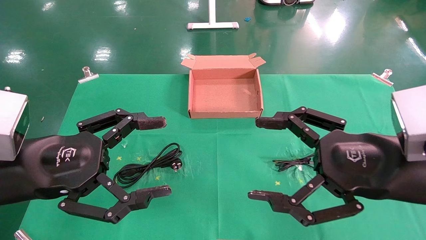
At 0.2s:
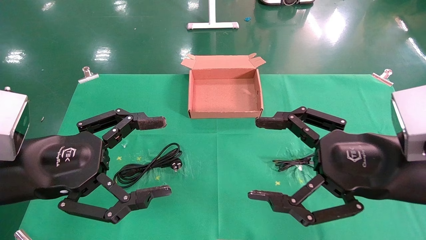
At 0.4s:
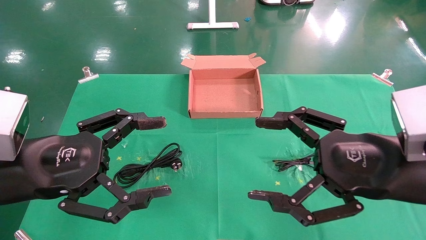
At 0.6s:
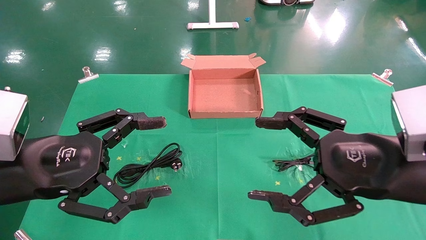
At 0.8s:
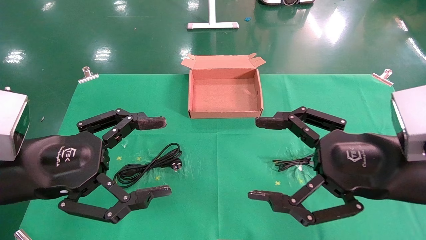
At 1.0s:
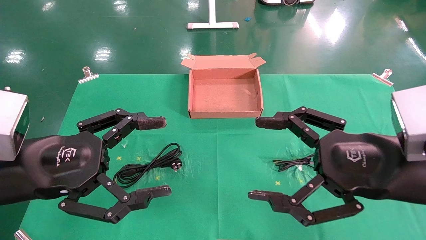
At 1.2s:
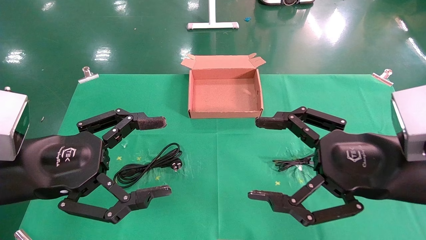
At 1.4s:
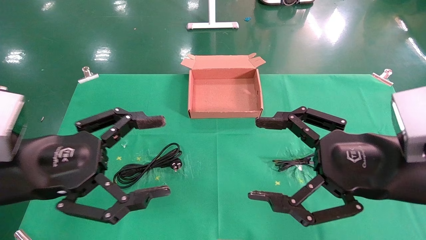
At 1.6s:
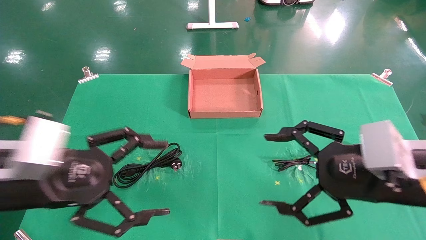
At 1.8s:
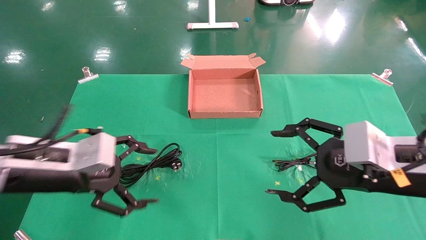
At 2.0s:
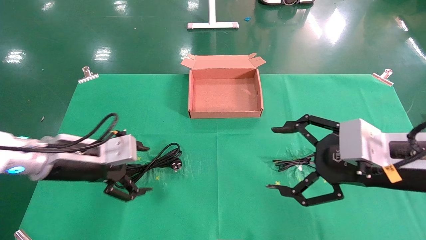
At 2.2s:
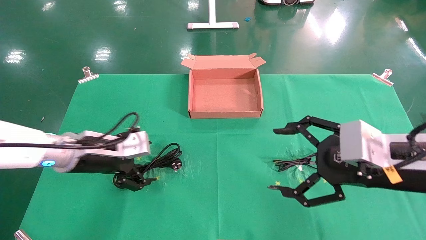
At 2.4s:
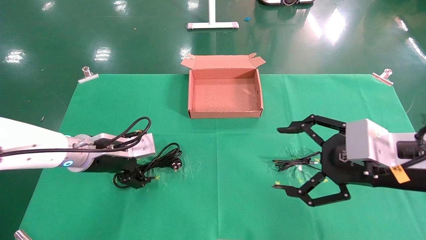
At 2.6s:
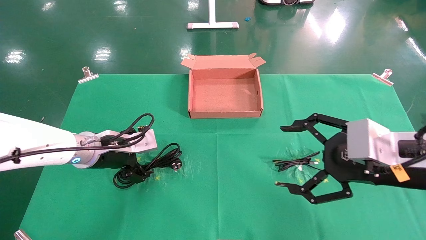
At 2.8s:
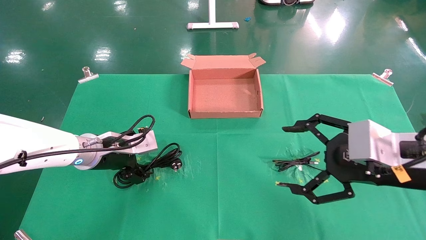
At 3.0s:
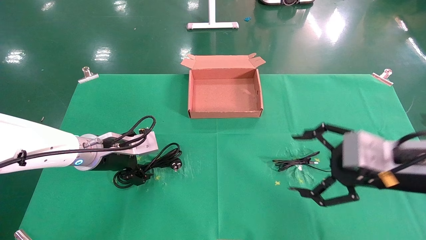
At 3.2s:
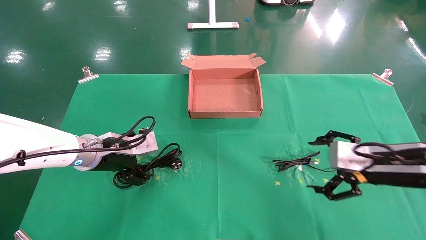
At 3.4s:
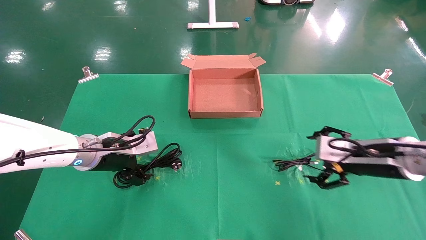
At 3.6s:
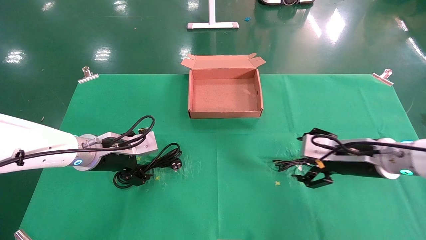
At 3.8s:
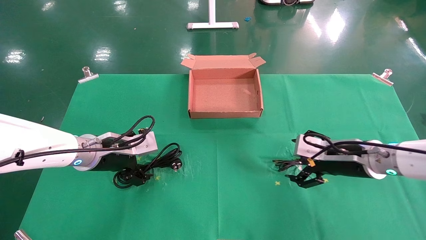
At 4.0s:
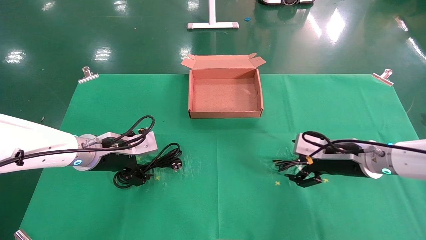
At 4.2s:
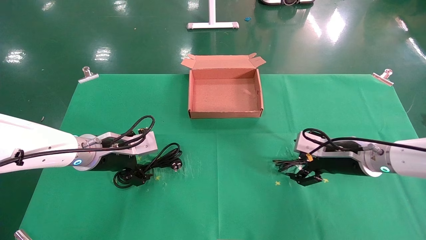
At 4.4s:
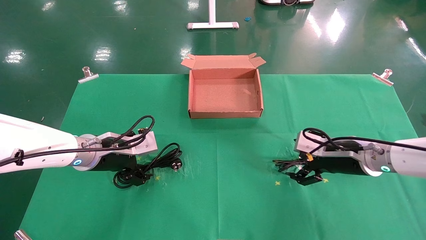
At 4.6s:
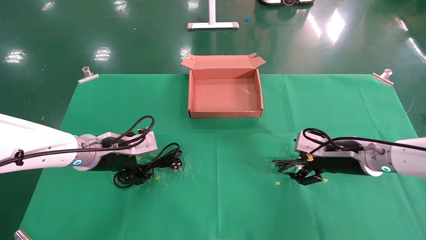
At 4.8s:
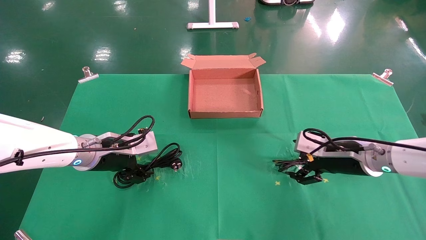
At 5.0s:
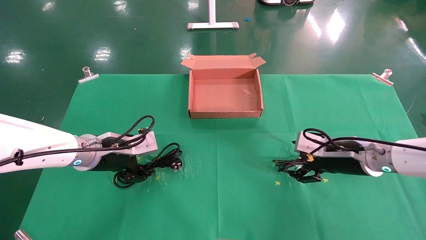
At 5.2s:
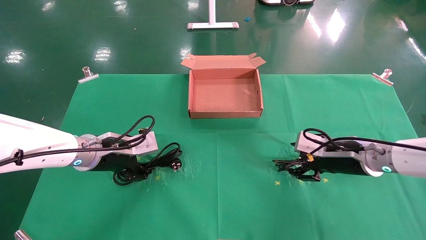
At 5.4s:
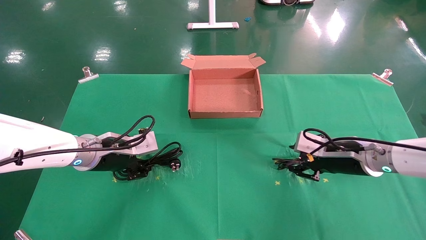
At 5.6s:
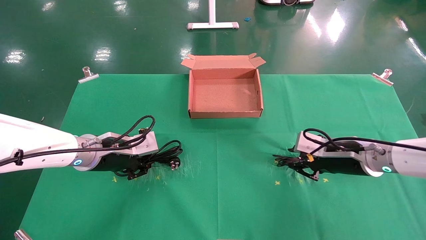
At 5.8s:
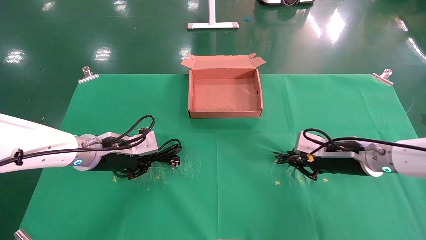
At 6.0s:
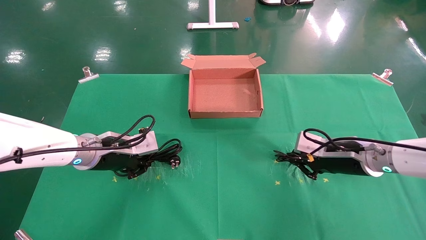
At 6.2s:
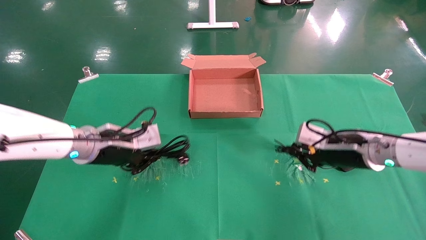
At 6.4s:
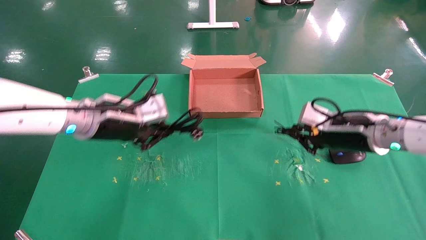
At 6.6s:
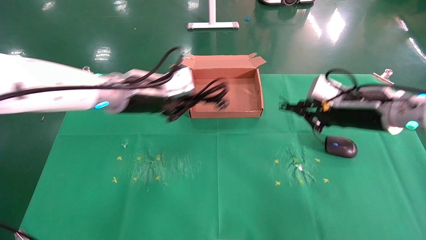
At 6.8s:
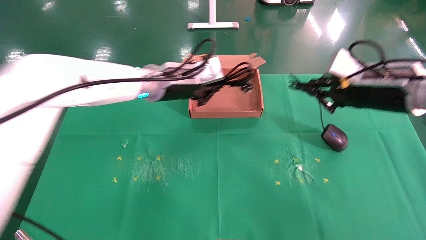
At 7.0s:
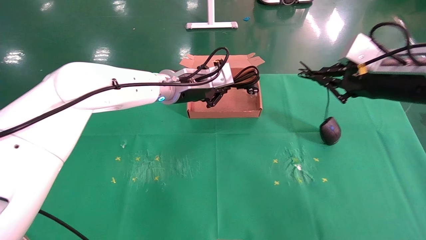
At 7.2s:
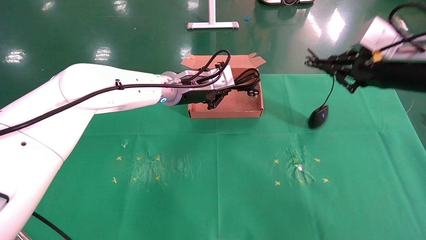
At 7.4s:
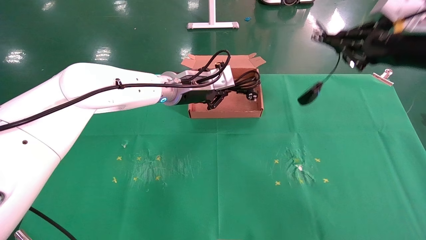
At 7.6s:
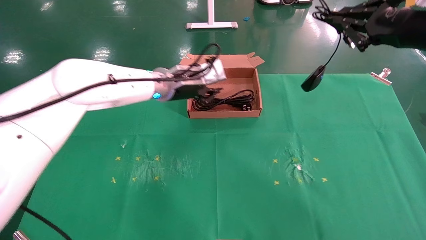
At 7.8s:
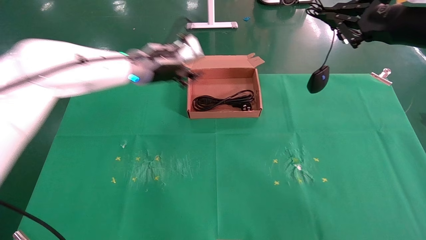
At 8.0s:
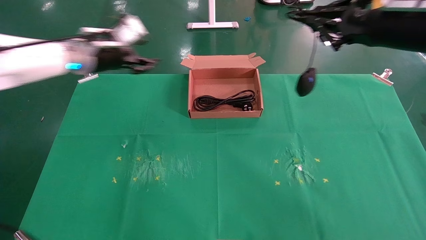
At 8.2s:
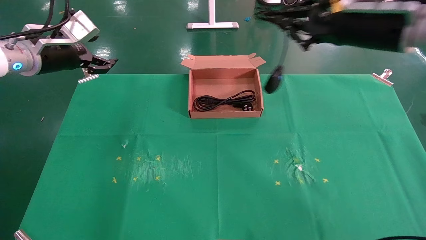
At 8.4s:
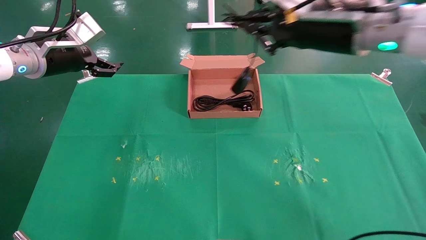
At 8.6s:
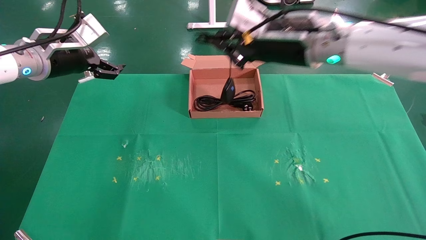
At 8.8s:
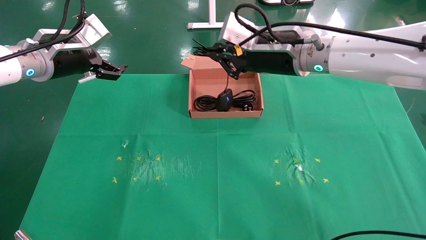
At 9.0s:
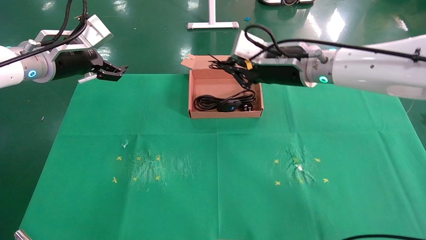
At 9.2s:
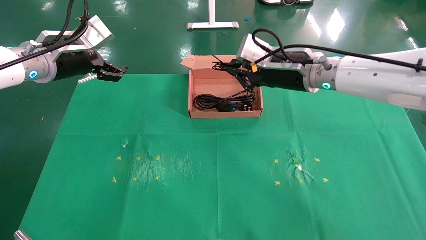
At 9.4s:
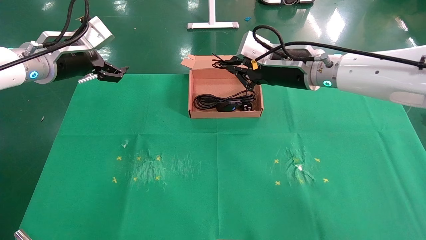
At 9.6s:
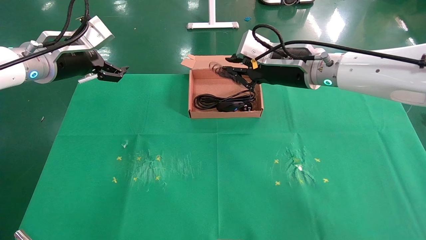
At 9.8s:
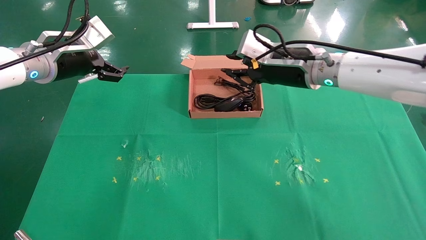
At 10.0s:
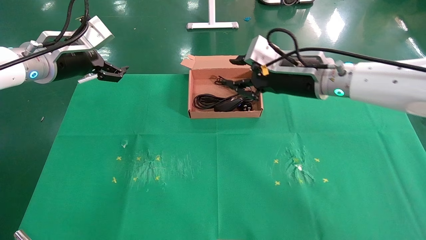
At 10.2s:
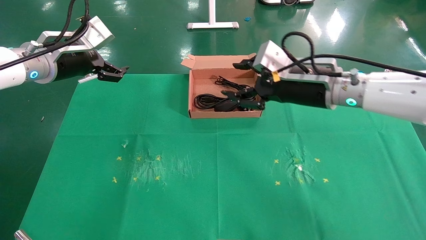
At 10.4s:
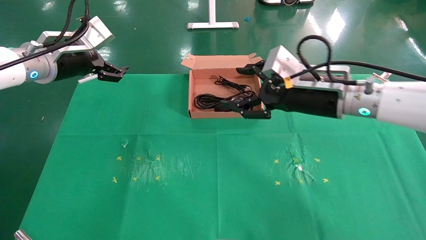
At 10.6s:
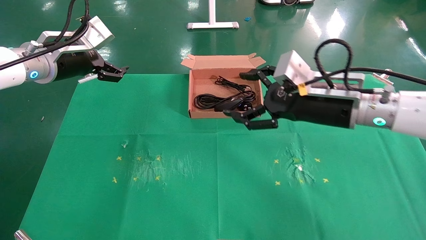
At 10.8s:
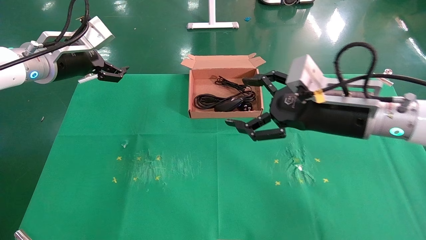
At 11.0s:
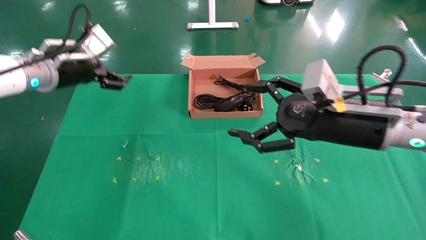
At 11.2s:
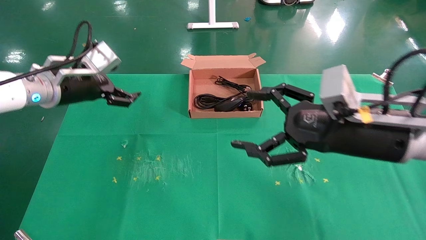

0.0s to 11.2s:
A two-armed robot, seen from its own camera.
Task of the whole recording: grasp data cable left put into box grasp mouse right put into box.
Step, 1.6s to 6.0s: Simultaneously pick up the mouse and power cord from the accessory packaging area.
Step, 6.2s to 9.8s: Place the mouse and power cord into the box.
1.6s to 3.2s: The right gripper moves forward, roughly 5 cm, while the left gripper travels forward by roughly 15 cm.
3.2s to 4.8s: The right gripper travels forward by approximately 10 cm.
4.8s to 6.4s: Both grippers travel together upward, about 5 cm. The right gripper closes up. The left gripper closes its fingers.
6.4s to 8.0s: The left gripper moves upward, forward and to the left, some 15 cm. The right gripper moves upward, roughly 15 cm.
8.0s to 9.6s: The left gripper ends up approximately 5 cm from where it was, and opens up. Meanwhile the right gripper shifts roughly 15 cm to the left, forward and downward.
9.6s to 11.2s: The left gripper changes place by about 5 cm. The right gripper moves backward, to the right and downward, roughly 15 cm, and opens its fingers.

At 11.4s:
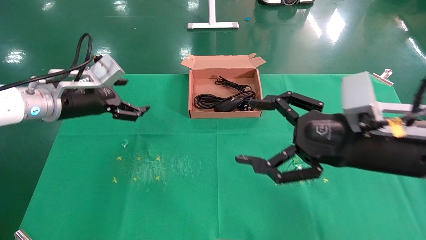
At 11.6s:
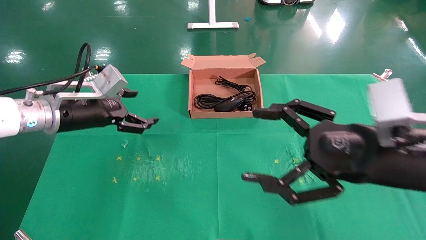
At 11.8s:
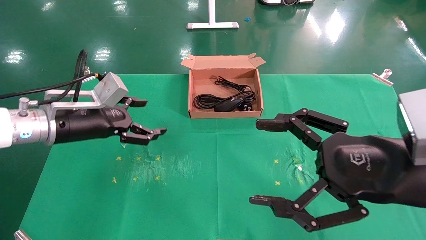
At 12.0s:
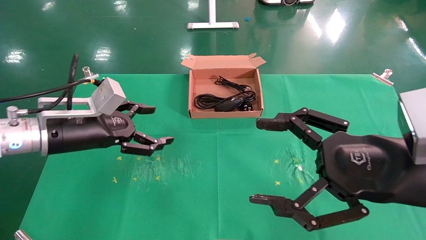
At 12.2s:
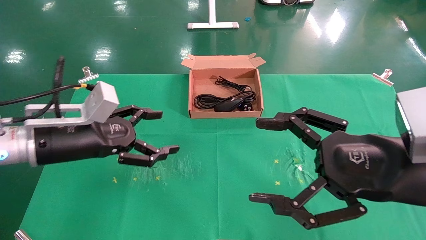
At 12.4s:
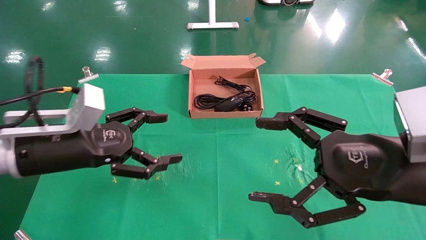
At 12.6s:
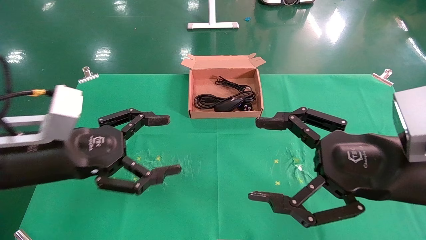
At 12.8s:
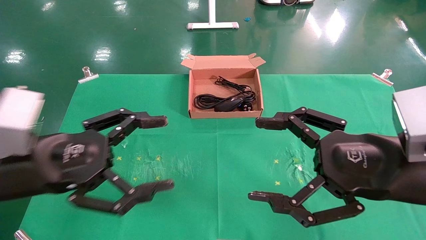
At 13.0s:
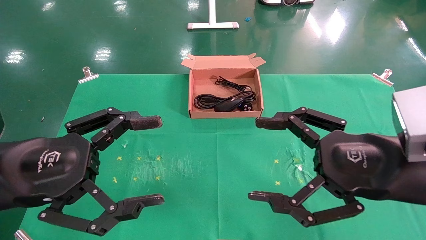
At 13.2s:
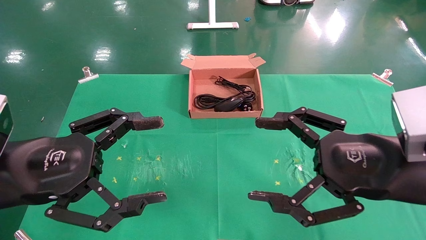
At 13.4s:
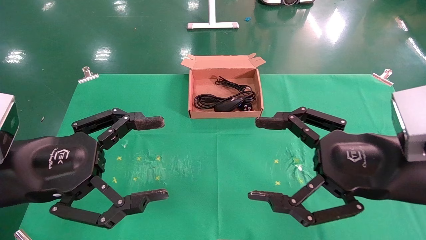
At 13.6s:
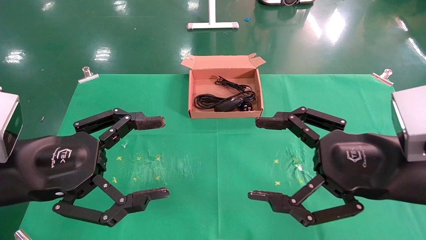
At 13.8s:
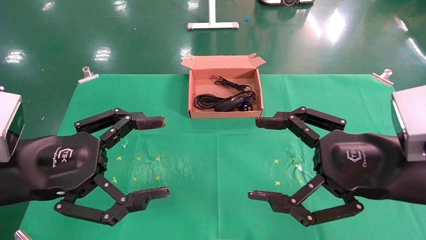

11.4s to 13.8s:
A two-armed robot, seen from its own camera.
Task of the whole recording: grasp data cable left put into box grasp mouse right put into box.
11.4s to 12.6s: The left gripper goes approximately 15 cm backward.
12.6s to 13.8s: The grippers stay close to where they were, moving slightly.
